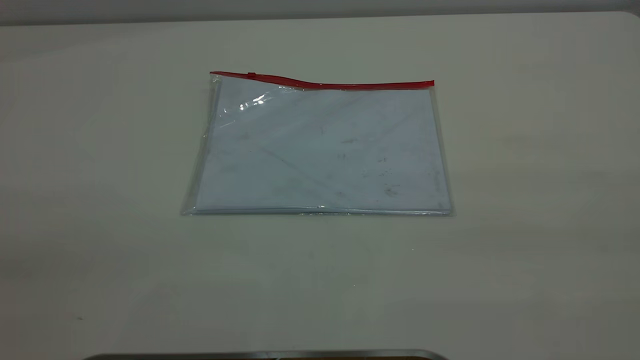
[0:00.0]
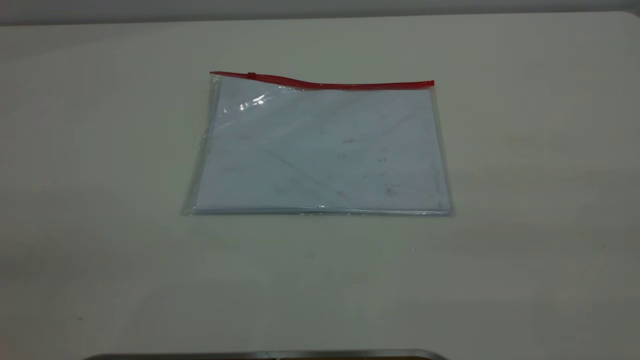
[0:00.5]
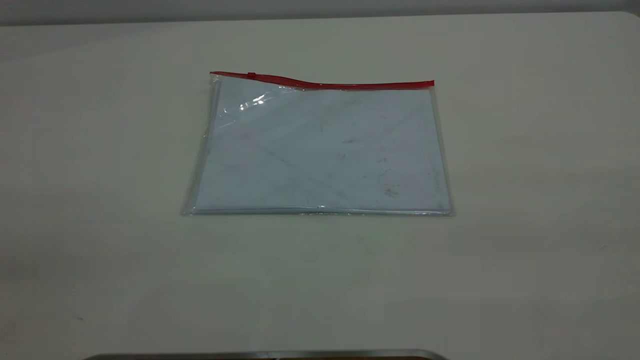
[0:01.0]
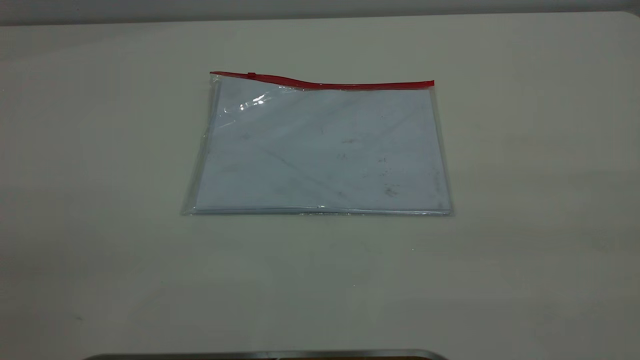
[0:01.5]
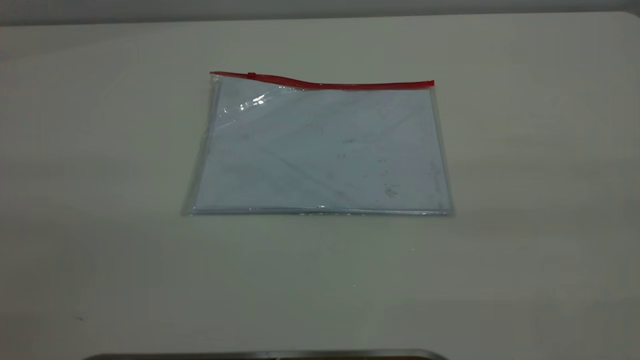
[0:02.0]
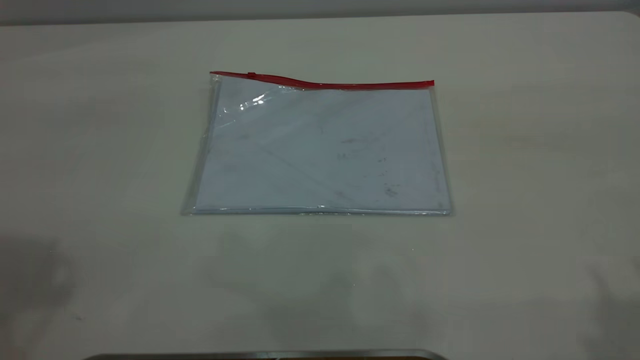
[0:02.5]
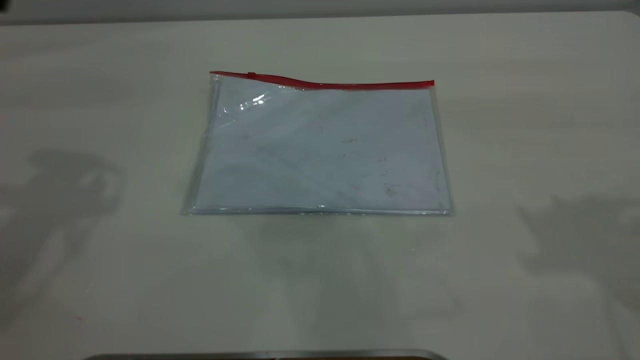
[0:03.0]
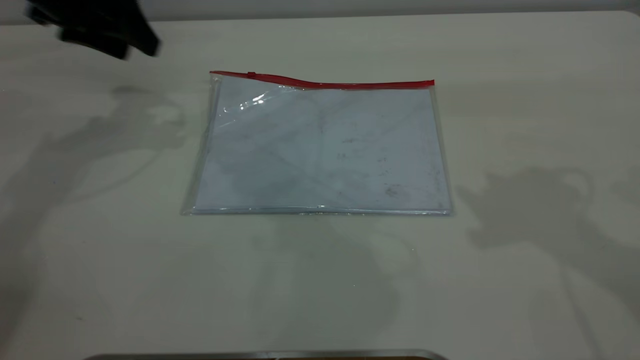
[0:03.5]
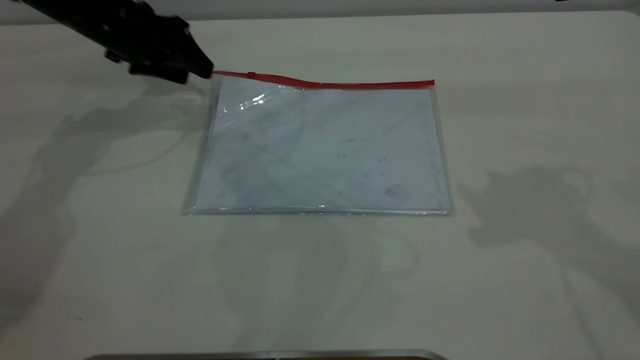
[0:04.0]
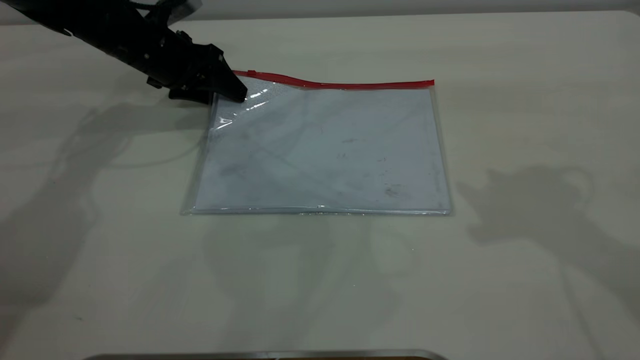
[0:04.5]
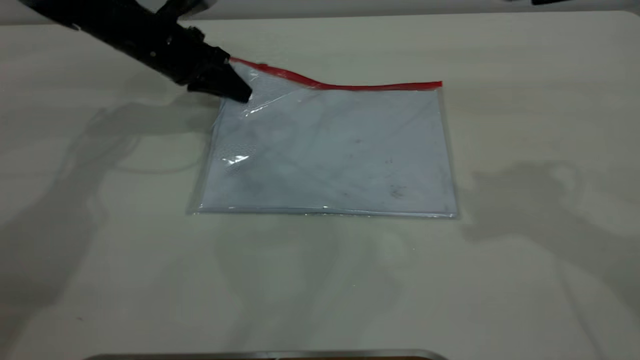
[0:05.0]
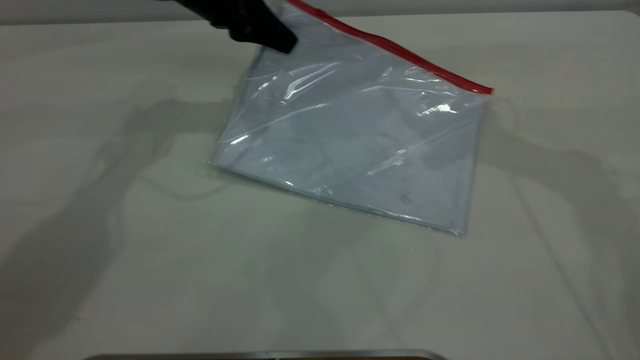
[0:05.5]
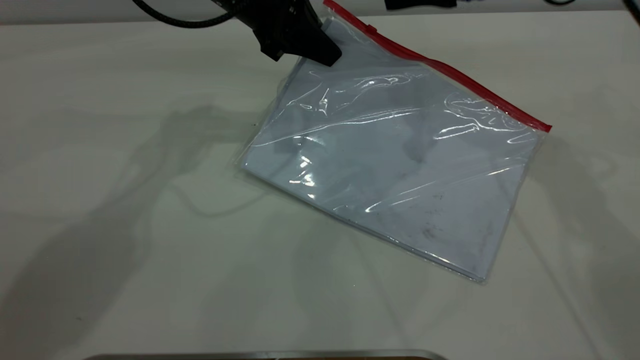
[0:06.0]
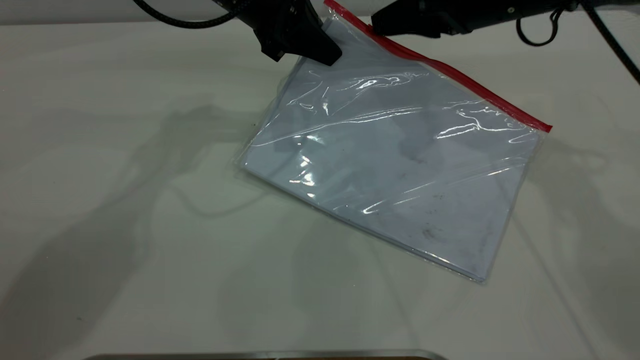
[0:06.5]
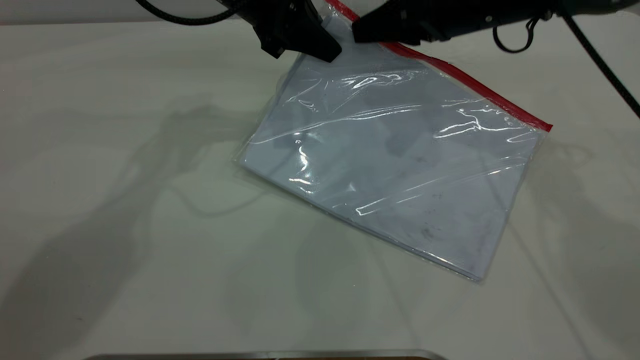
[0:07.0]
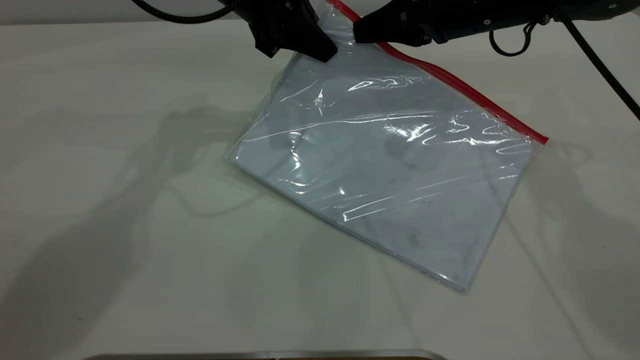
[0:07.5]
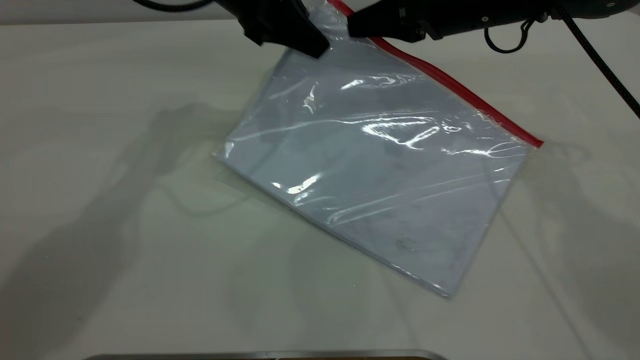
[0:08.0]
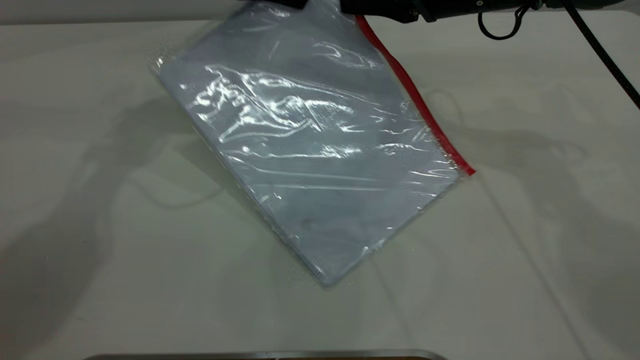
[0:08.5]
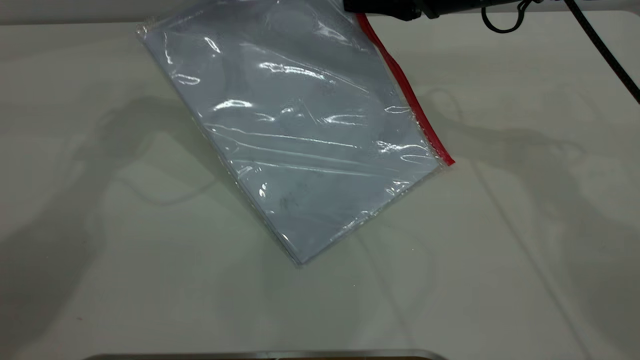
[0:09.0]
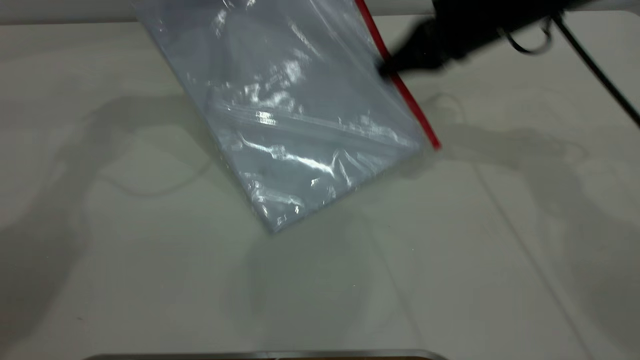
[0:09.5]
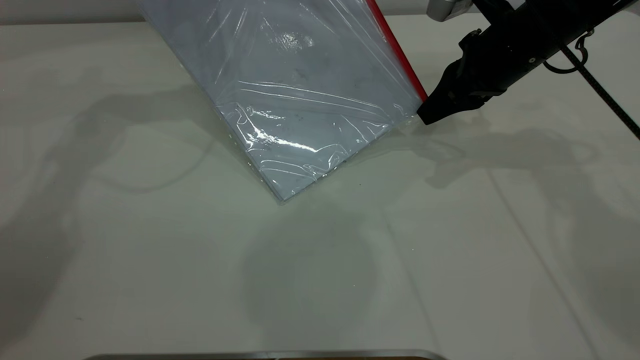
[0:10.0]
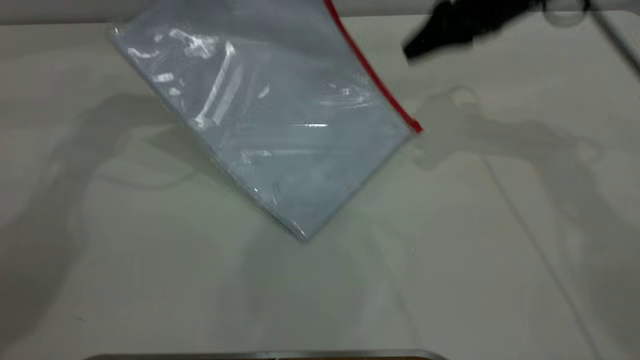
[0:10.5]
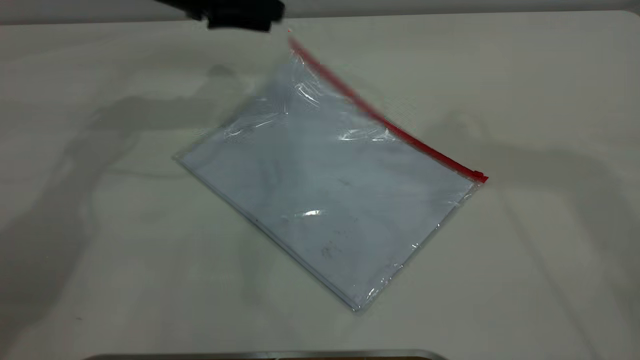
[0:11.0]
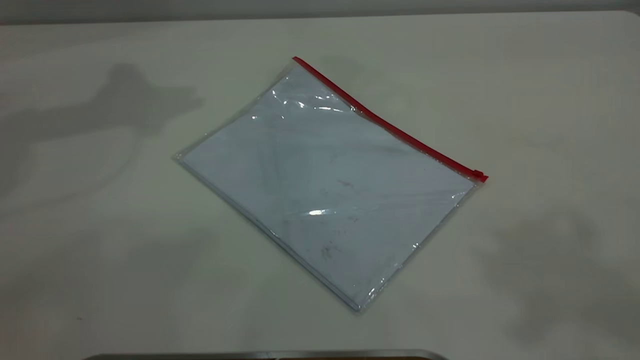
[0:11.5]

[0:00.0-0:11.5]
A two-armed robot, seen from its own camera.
Step, 0:00.0 to 0:05.0: Pick up the transparent plastic bag with the left gripper.
Step, 0:05.5 to 0:10.0: Pulling up the zipper on the transparent plastic bag with the right gripper to close it.
Step, 0:10.5 to 0:11.0: Place the transparent plastic bag.
0:02.0 to 0:04.0: The left gripper travels forward and downward by approximately 50 cm.
0:04.0 to 0:06.0: The left gripper shifts some 15 cm to the right, and closes; the right gripper moves forward, downward and to the left, some 20 cm.
0:06.0 to 0:07.5: The right gripper ends up some 5 cm from where it was, and closes up.
0:07.5 to 0:09.5: The left gripper goes roughly 10 cm to the left and upward.
0:09.5 to 0:11.5: The right gripper moves upward and backward, approximately 50 cm, and opens up, while the left gripper travels upward and to the left by about 20 cm, and opens its fingers.

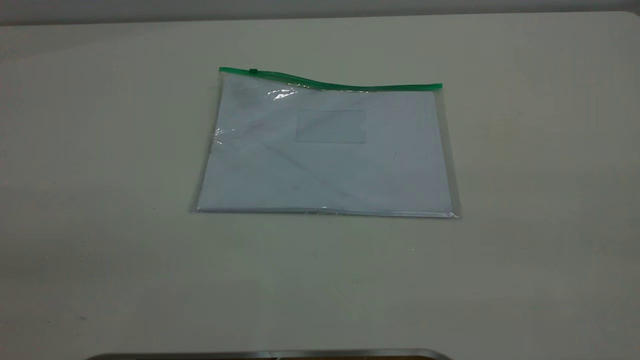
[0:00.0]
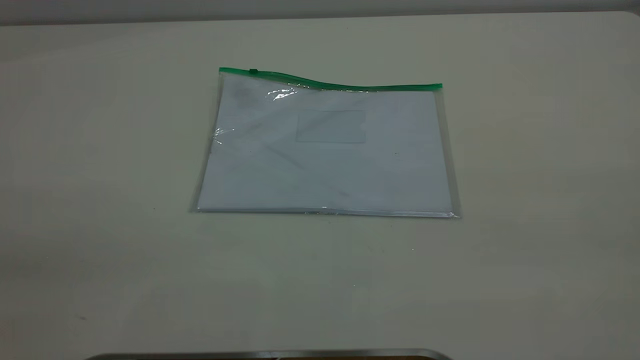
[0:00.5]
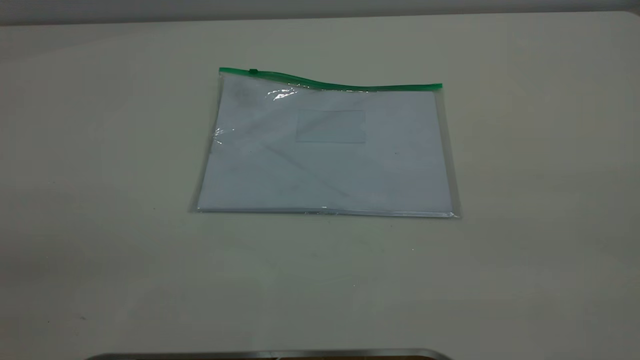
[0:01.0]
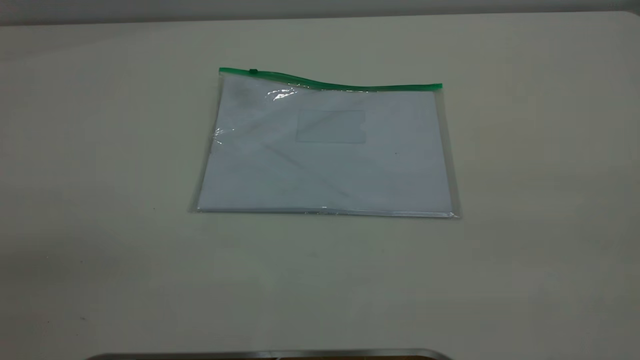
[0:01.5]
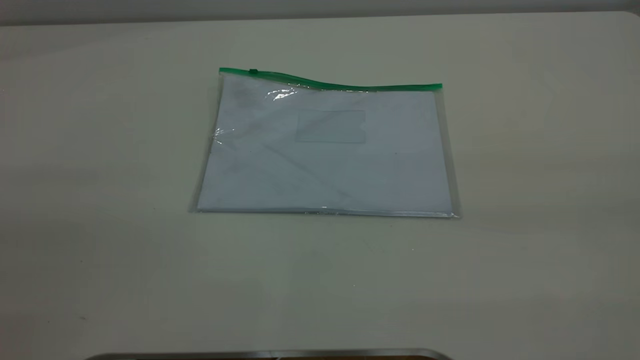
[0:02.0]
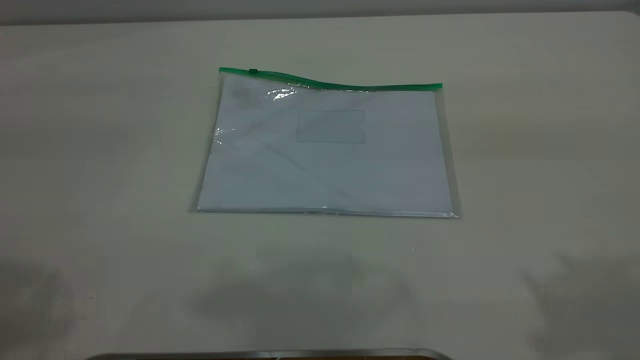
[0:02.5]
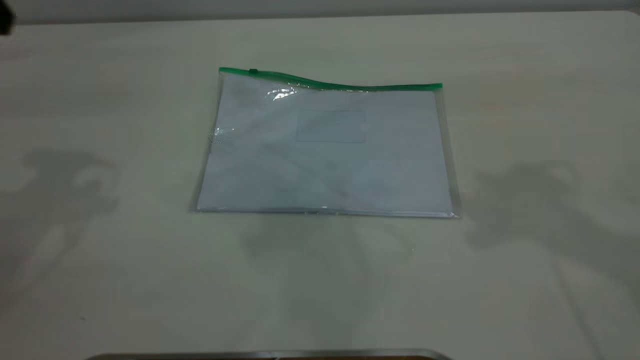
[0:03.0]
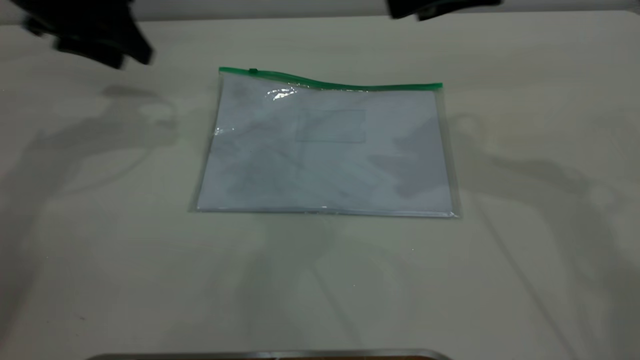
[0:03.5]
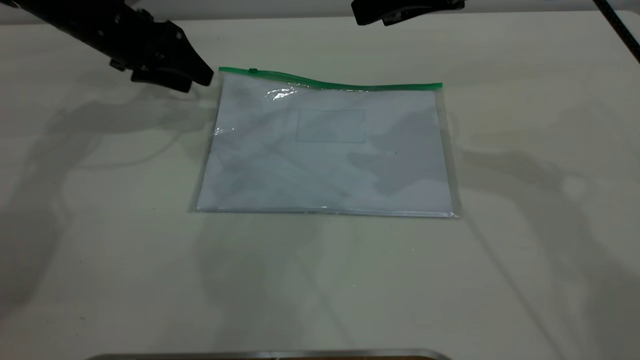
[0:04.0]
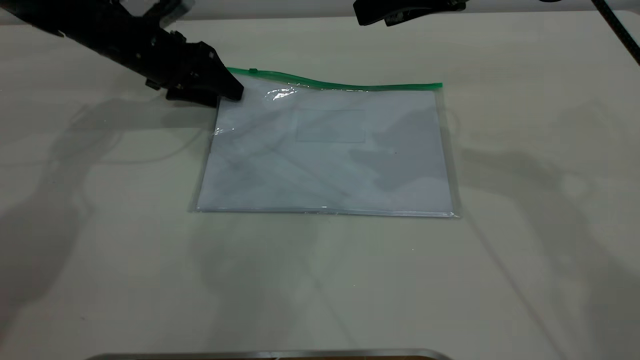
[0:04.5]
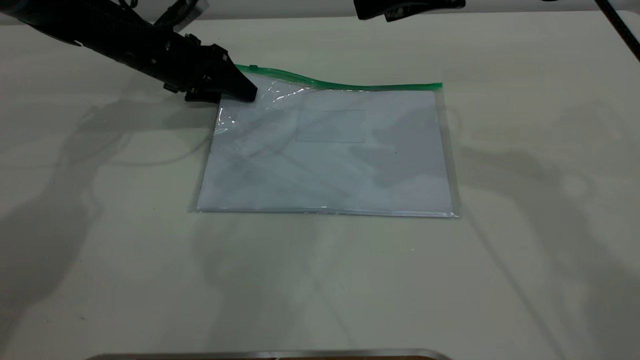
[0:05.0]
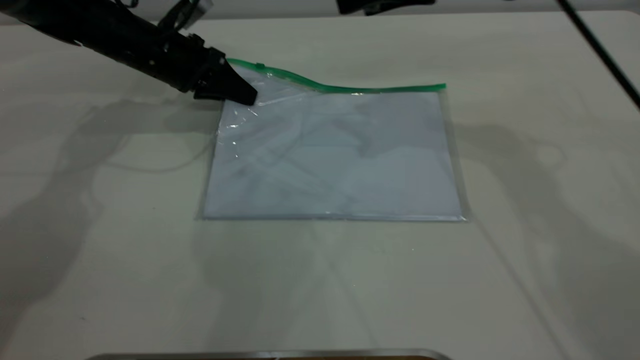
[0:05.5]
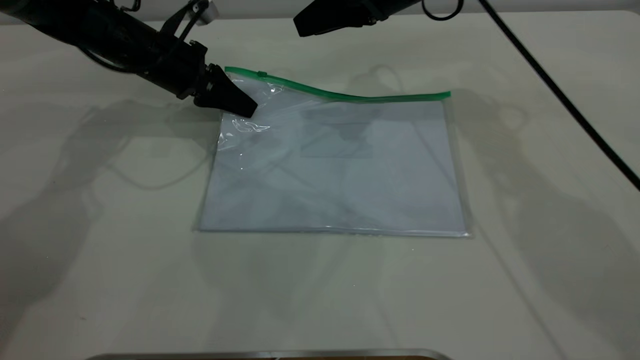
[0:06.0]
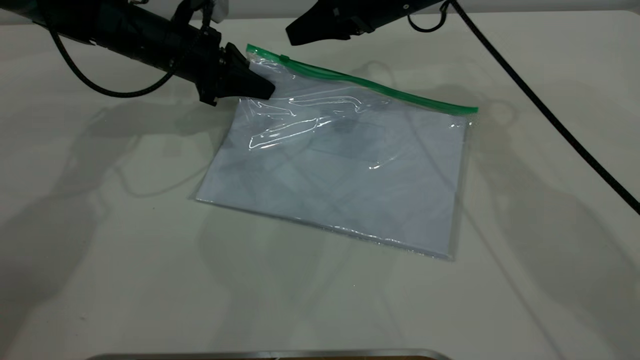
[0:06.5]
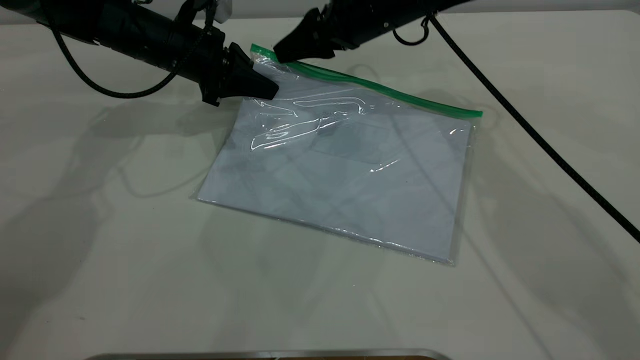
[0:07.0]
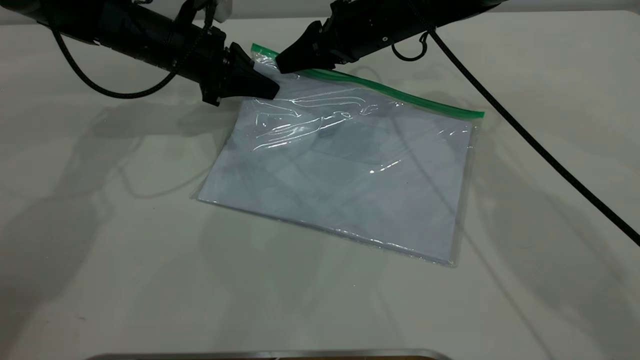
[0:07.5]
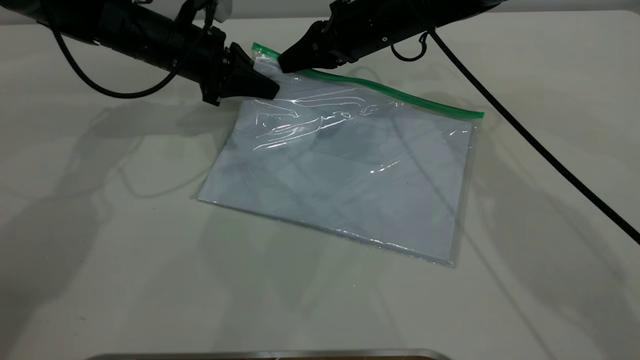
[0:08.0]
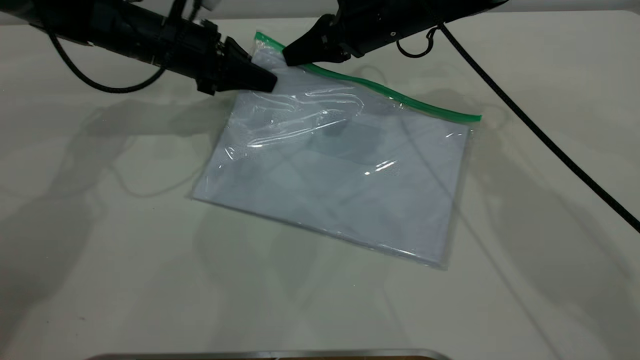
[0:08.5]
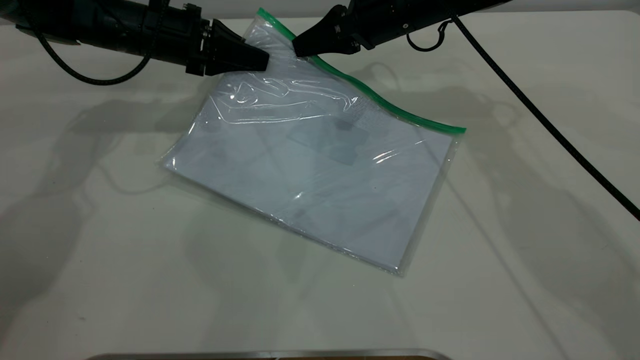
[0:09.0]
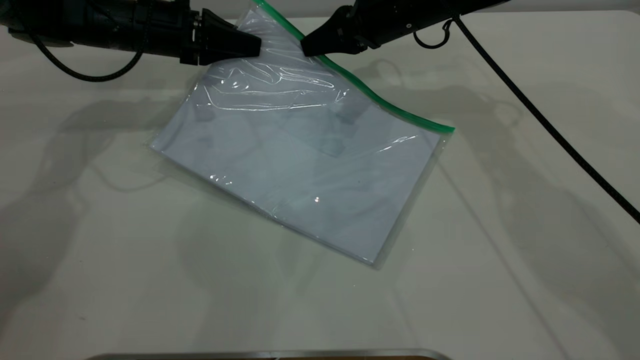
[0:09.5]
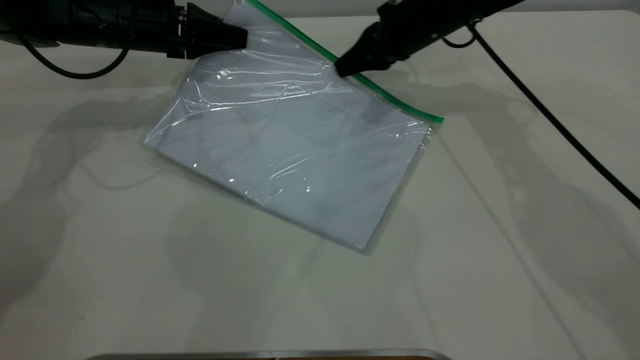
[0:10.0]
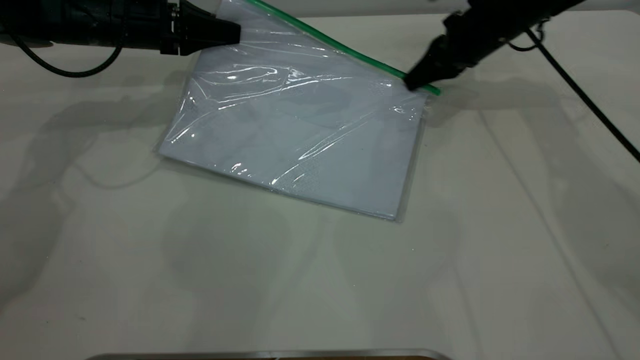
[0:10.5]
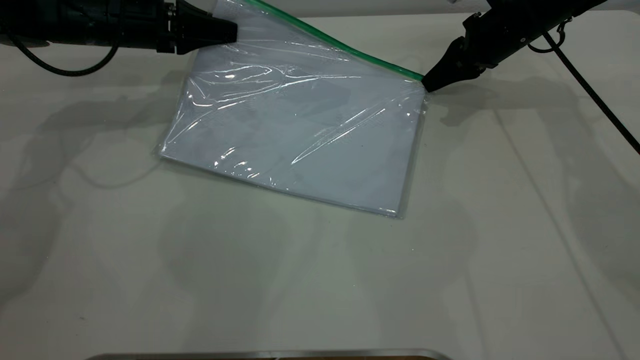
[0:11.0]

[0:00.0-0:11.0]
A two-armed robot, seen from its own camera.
Step, 0:00.0 to 0:05.5: Pick up the transparent plastic bag with the left gripper.
0:02.0 to 0:03.5: The right gripper is displaced forward by about 35 cm, while the left gripper travels forward and downward by approximately 50 cm.
0:03.5 to 0:05.5: The right gripper shifts some 5 cm forward; the left gripper is displaced downward and to the right by roughly 15 cm, and closes up.
0:05.5 to 0:07.5: The right gripper shifts about 15 cm downward, to the left and forward.
0:07.5 to 0:09.0: The right gripper closes its fingers.
0:09.0 to 0:11.0: The right gripper shifts approximately 15 cm to the right.
